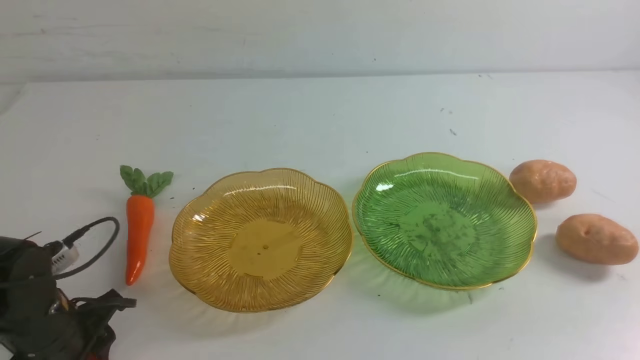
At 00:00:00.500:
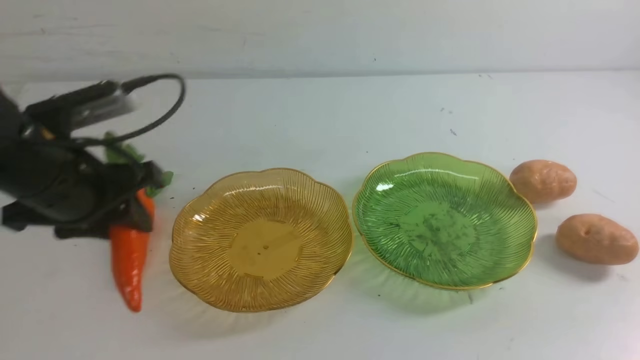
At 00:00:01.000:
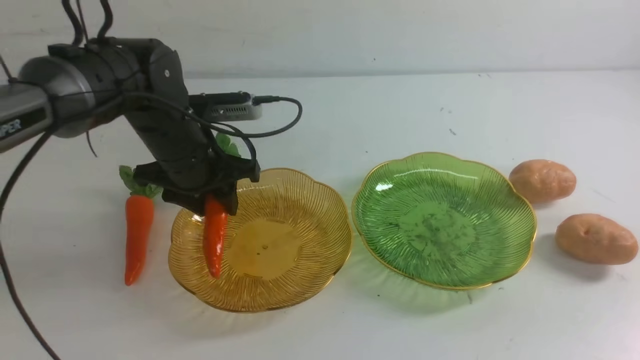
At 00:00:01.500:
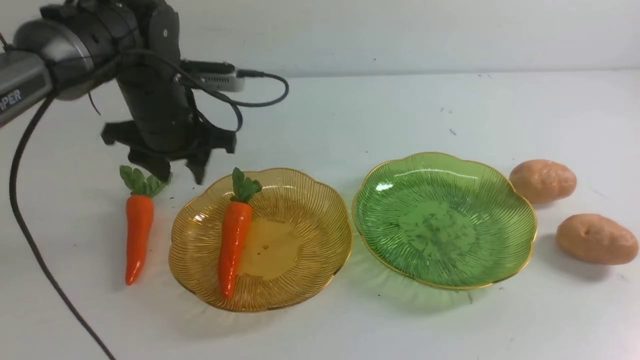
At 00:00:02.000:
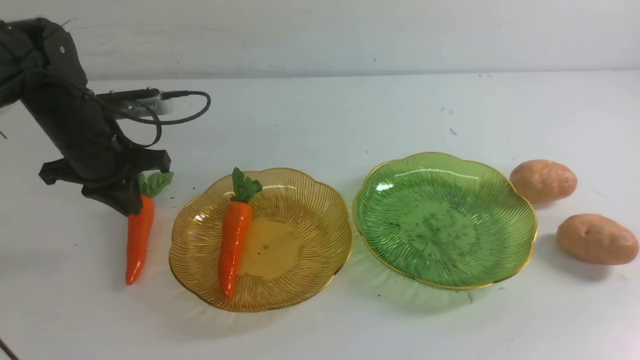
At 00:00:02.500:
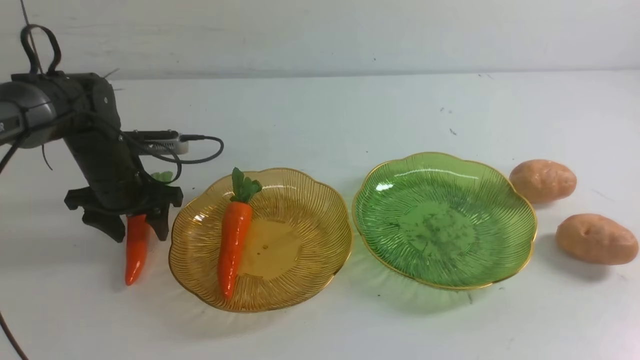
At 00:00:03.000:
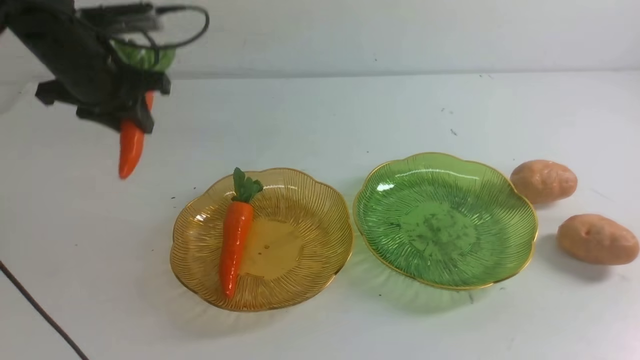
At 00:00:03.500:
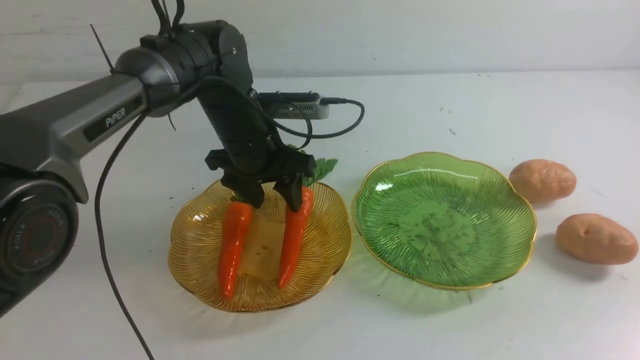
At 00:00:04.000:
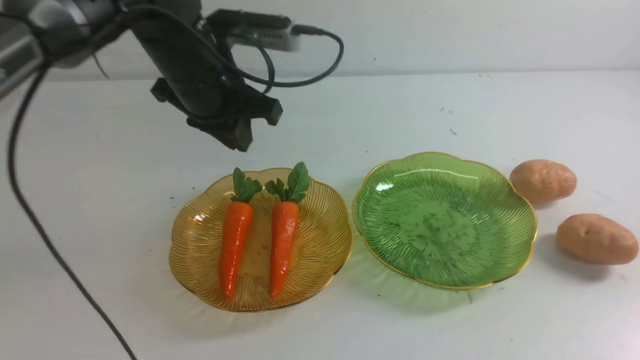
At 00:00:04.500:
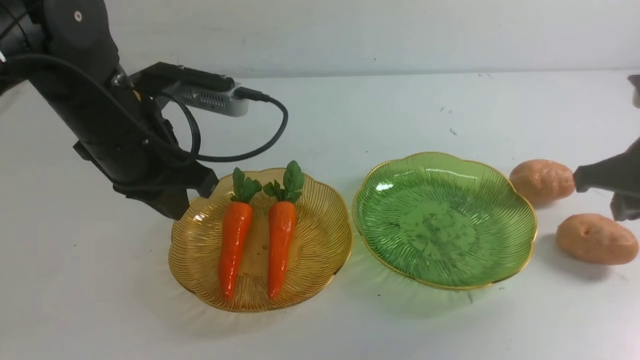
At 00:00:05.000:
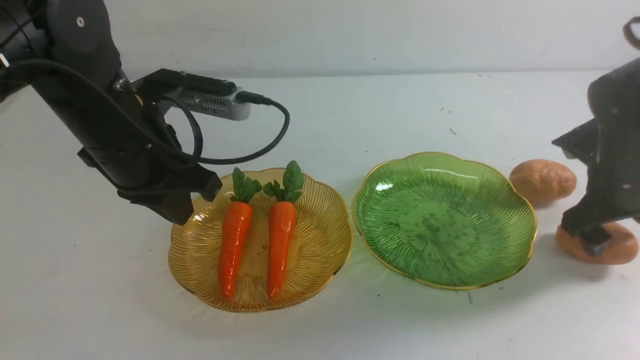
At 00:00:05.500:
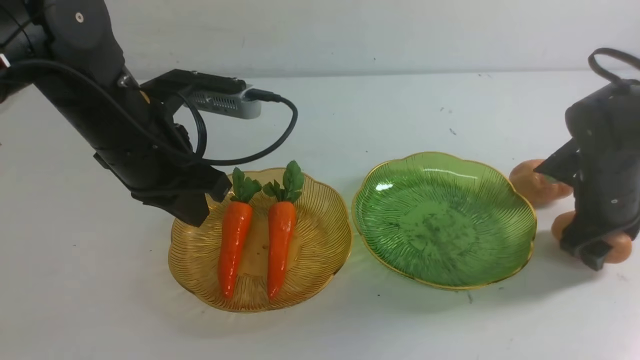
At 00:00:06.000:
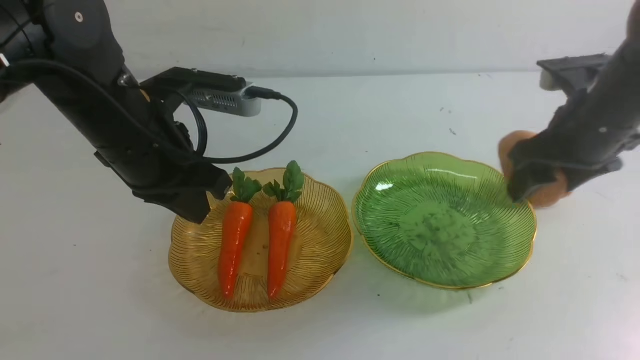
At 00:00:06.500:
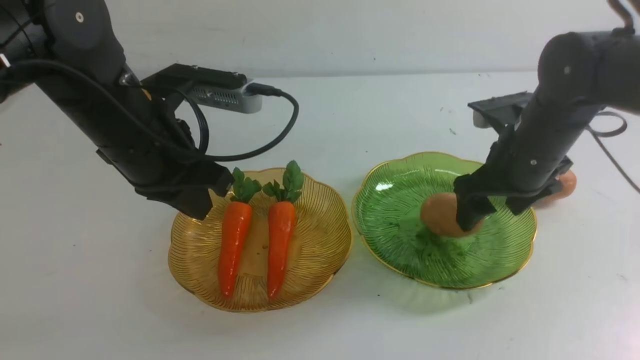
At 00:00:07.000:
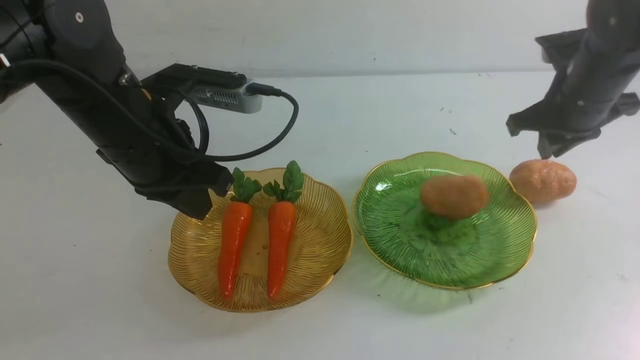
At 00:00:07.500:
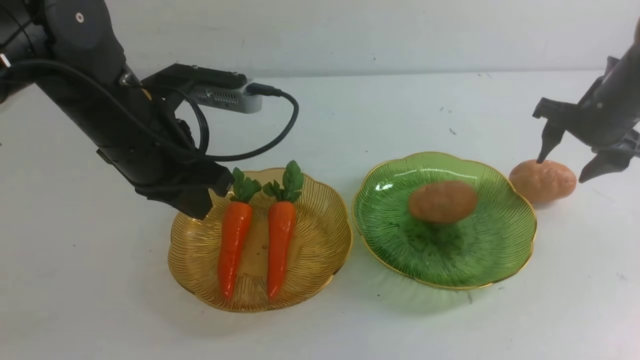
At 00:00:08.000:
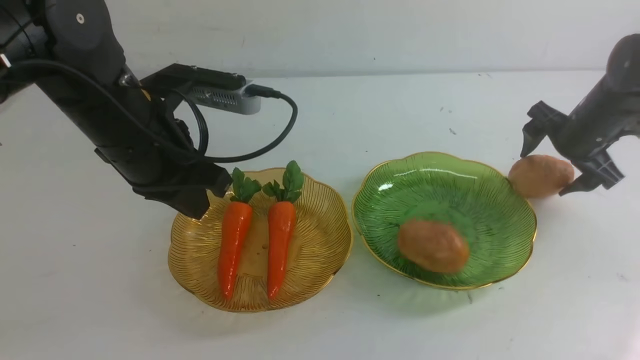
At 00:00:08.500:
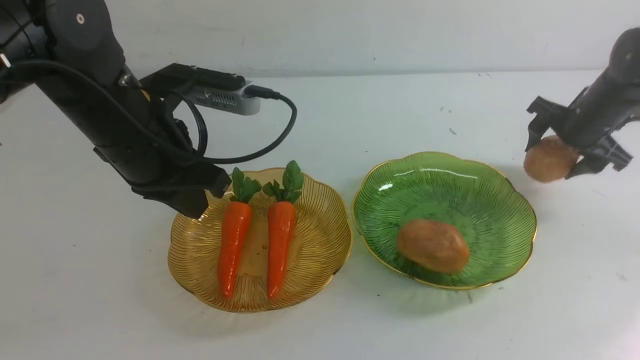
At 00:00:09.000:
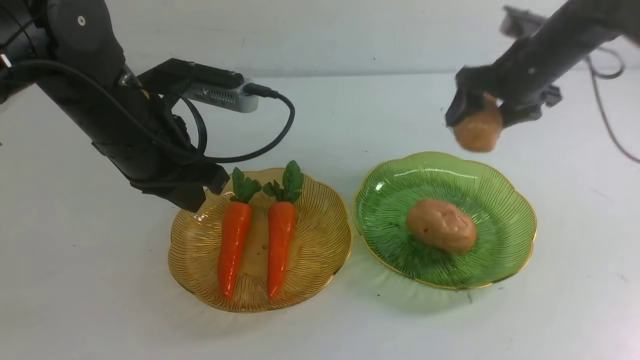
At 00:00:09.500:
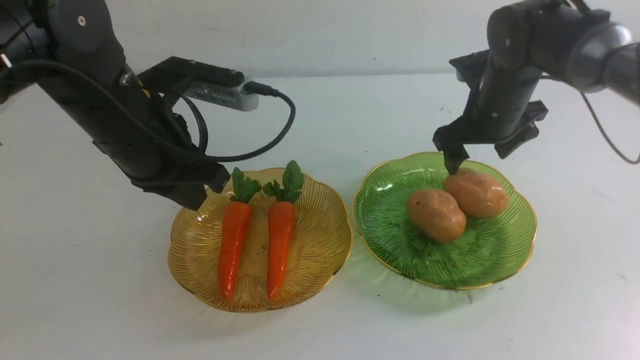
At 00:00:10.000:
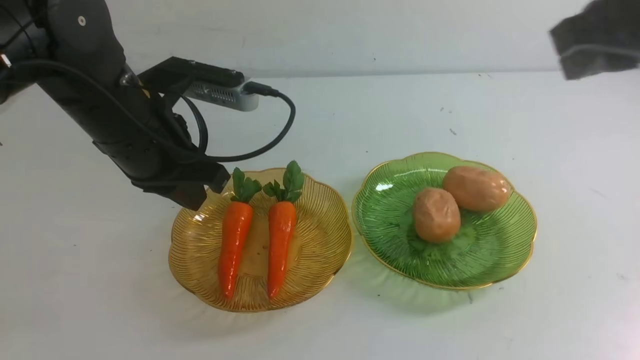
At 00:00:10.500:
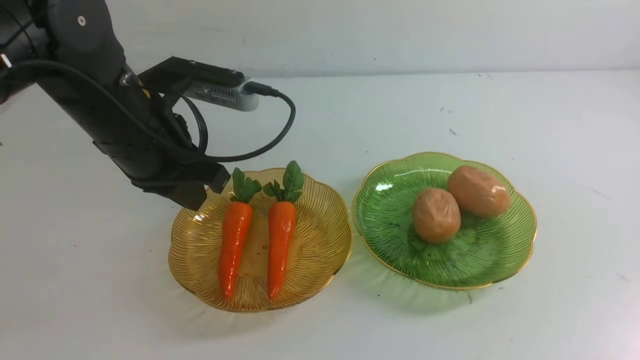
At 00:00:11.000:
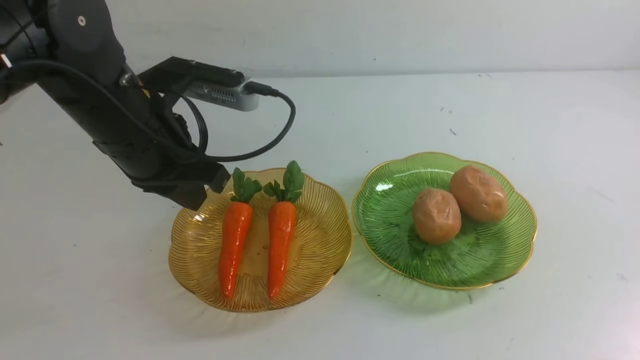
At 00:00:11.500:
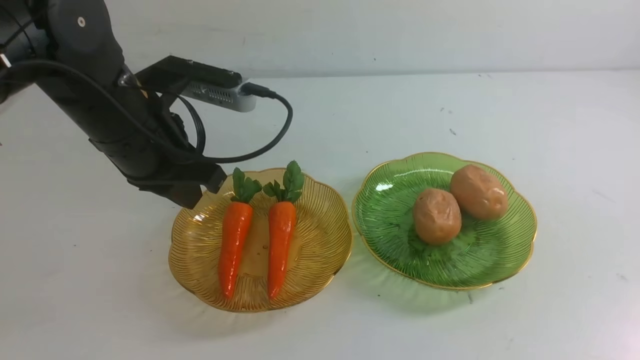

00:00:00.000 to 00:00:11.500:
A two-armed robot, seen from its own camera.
Step, 00:00:00.000 to 00:00:03.500: use the left arm to grab a carrot and put it into the left plate.
Step, 00:00:04.000 to 00:00:06.500: Grab a potato with your right arm and put it on the right plate.
Step, 00:00:07.000 to 00:00:09.500: Grab a potato with your right arm and put it on the right plate.
00:00:00.000 to 00:00:02.000: The left gripper shifts some 15 cm forward.
00:00:02.000 to 00:00:04.000: The left gripper travels to the right and upward by approximately 15 cm, and opens, then closes once more, while the right gripper goes roughly 5 cm forward.
00:00:04.000 to 00:00:06.000: The right gripper is displaced forward by approximately 25 cm, and opens up, while the left gripper heads backward, covering some 10 cm, and closes up.
00:00:06.000 to 00:00:07.500: The right gripper shifts some 10 cm forward and to the right, and closes and opens again.
00:00:07.500 to 00:00:09.500: The right gripper is displaced to the left by some 10 cm.
00:00:09.500 to 00:00:11.500: The right gripper heads backward, covering some 35 cm, and closes.

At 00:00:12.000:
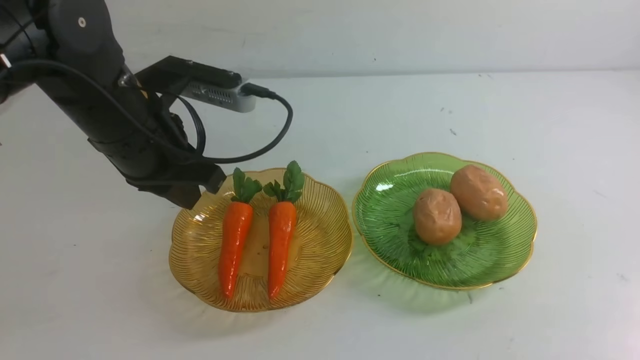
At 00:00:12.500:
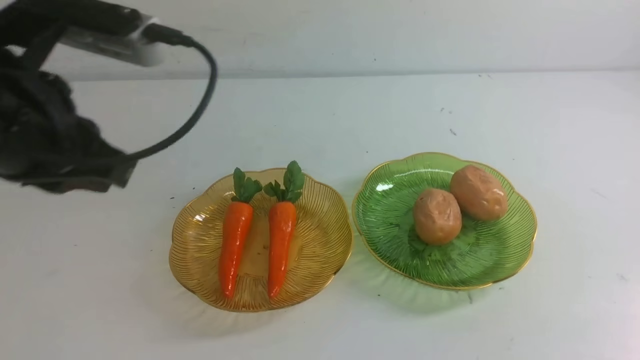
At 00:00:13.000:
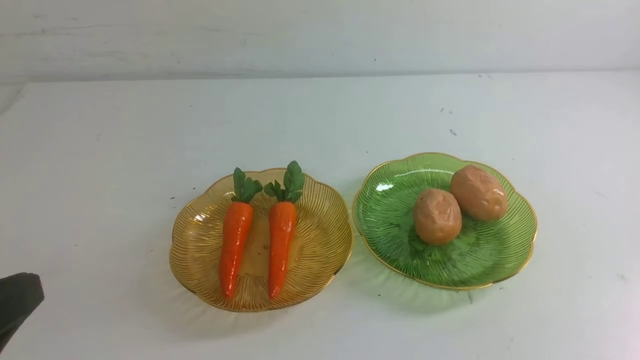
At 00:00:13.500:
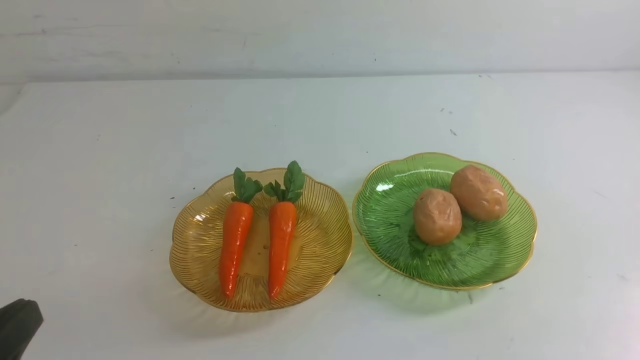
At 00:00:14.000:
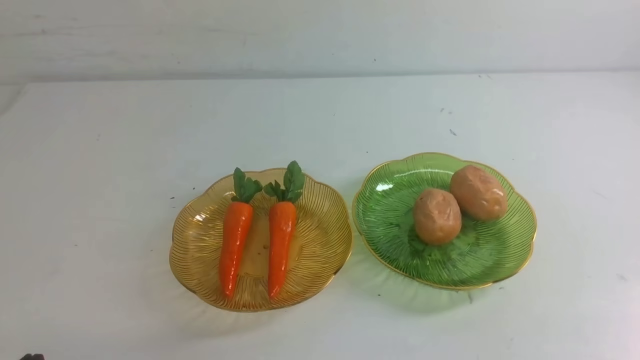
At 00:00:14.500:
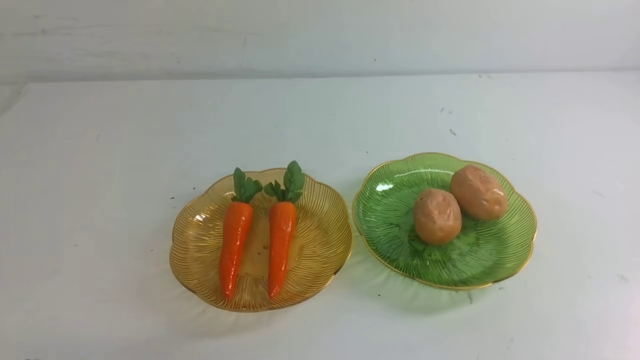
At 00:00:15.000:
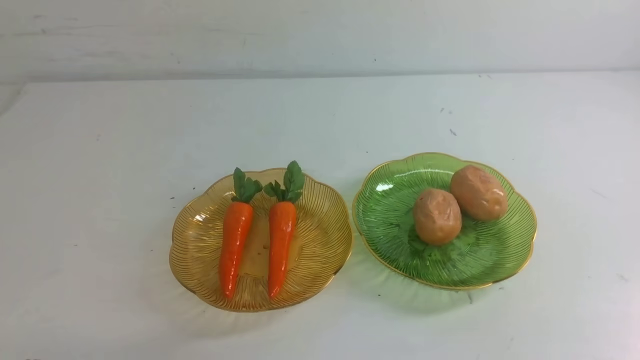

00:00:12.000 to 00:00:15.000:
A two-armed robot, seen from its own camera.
00:00:12.000 to 00:00:13.500: The left gripper goes roughly 25 cm backward.
00:00:13.500 to 00:00:15.000: The left gripper moves downward, some 10 cm.
